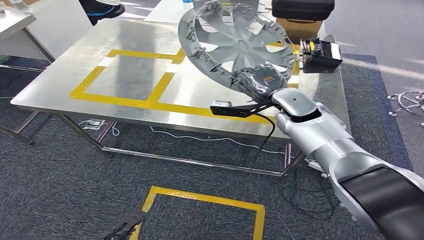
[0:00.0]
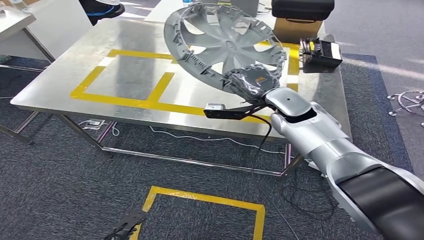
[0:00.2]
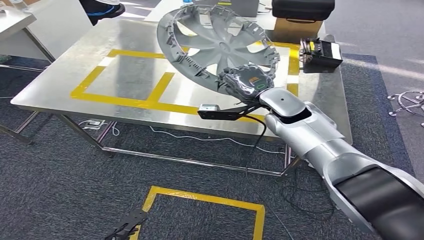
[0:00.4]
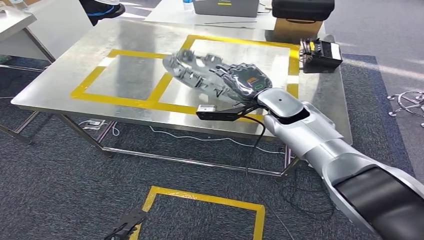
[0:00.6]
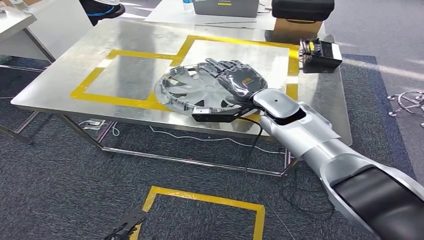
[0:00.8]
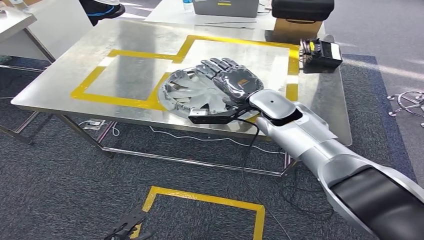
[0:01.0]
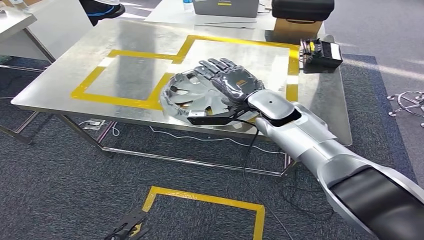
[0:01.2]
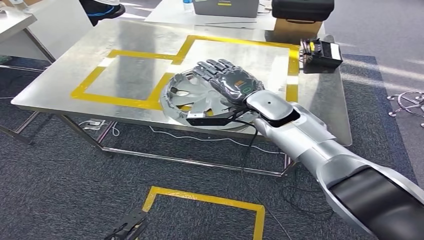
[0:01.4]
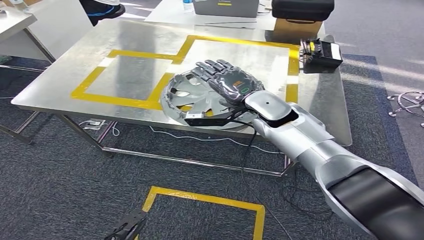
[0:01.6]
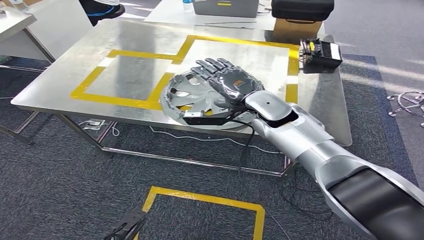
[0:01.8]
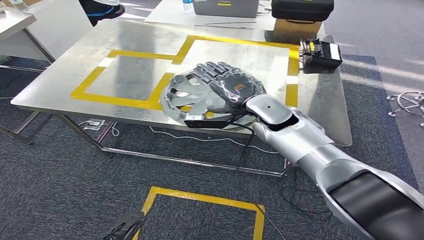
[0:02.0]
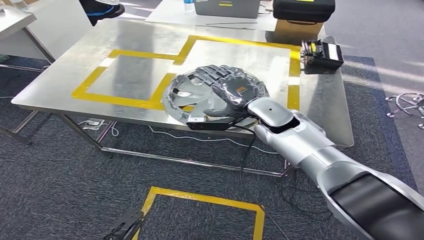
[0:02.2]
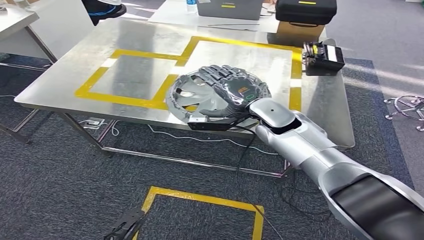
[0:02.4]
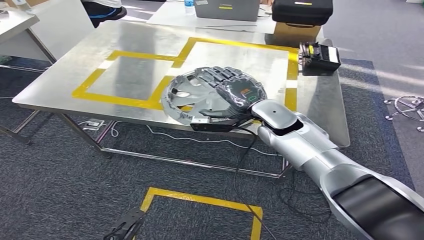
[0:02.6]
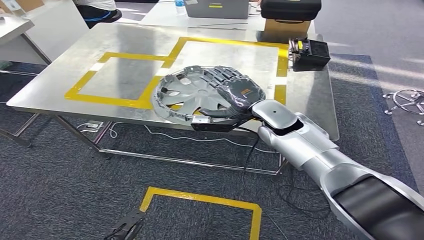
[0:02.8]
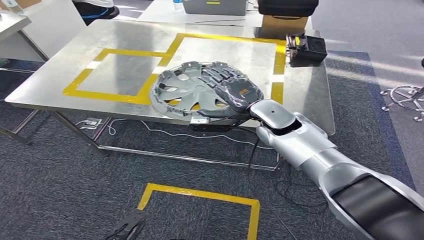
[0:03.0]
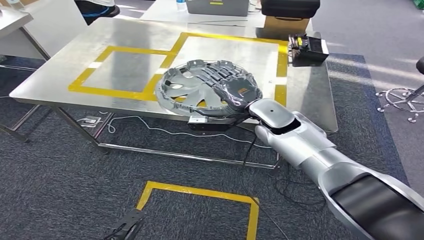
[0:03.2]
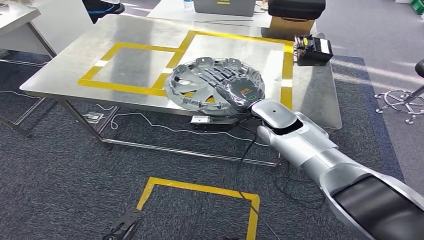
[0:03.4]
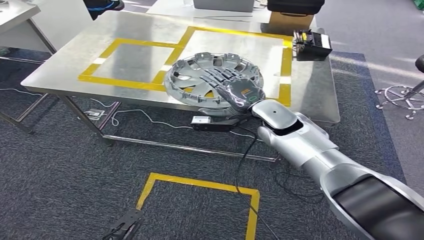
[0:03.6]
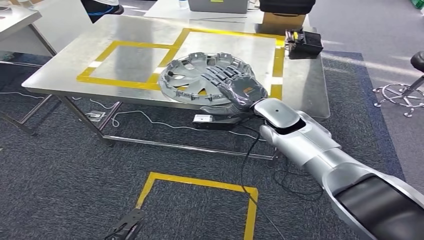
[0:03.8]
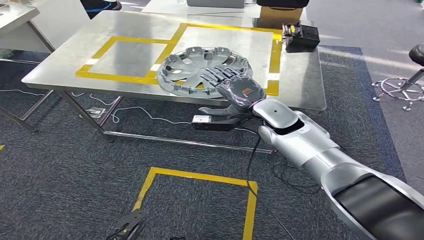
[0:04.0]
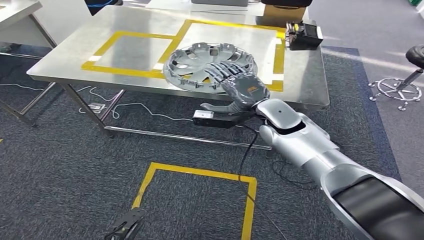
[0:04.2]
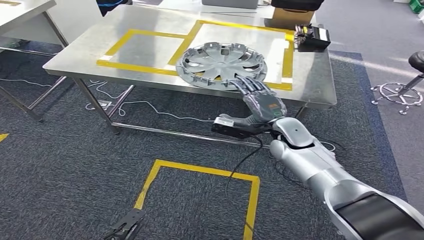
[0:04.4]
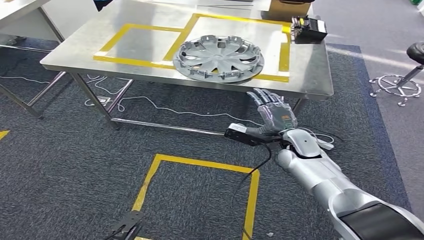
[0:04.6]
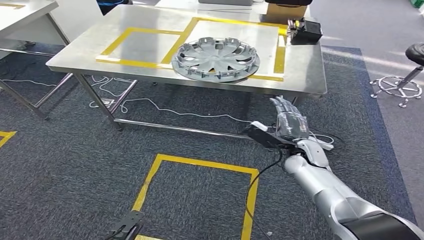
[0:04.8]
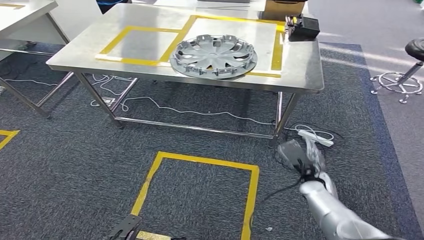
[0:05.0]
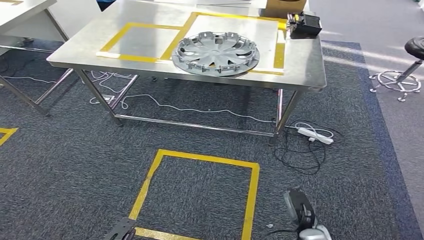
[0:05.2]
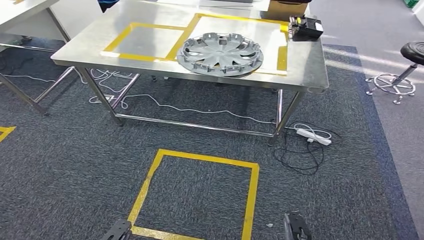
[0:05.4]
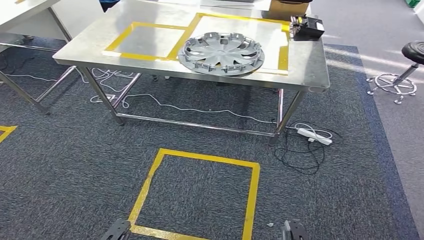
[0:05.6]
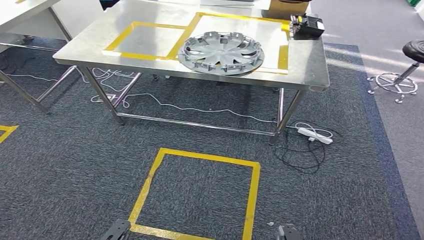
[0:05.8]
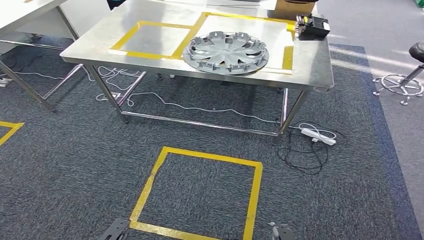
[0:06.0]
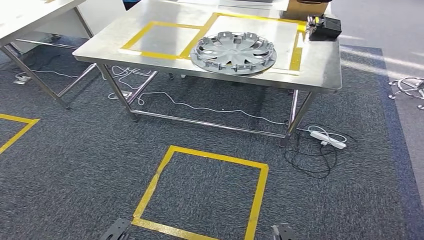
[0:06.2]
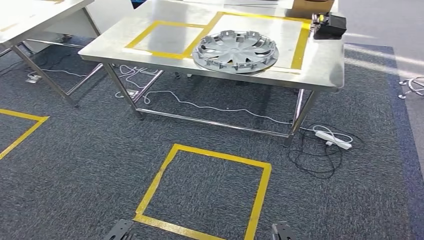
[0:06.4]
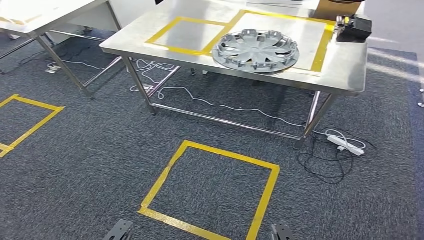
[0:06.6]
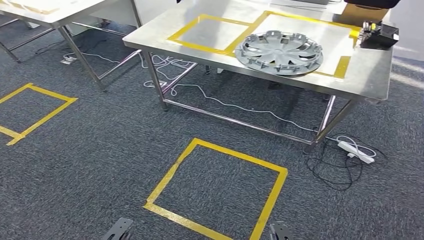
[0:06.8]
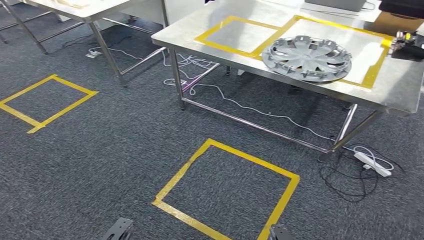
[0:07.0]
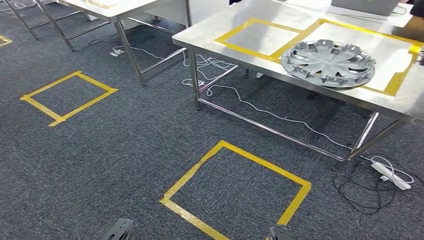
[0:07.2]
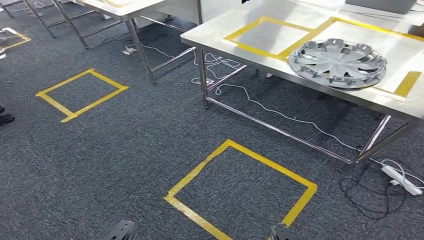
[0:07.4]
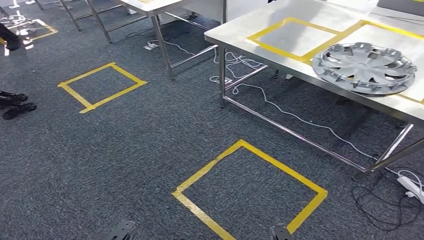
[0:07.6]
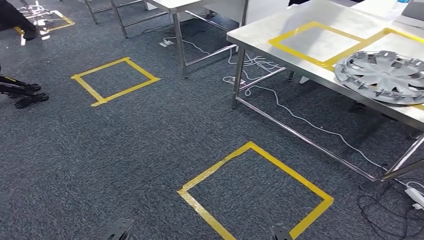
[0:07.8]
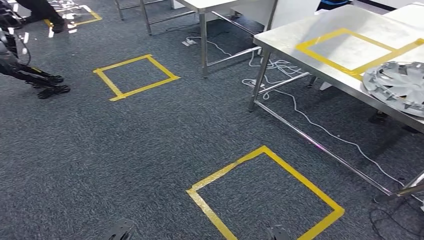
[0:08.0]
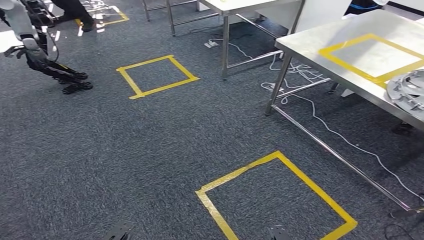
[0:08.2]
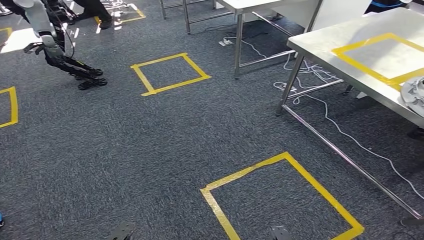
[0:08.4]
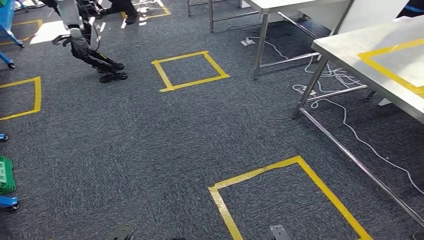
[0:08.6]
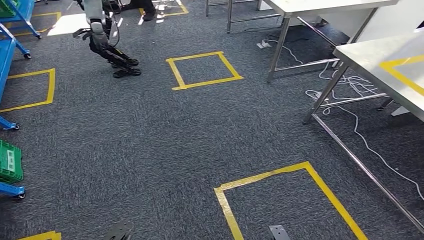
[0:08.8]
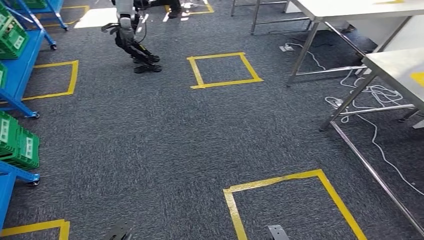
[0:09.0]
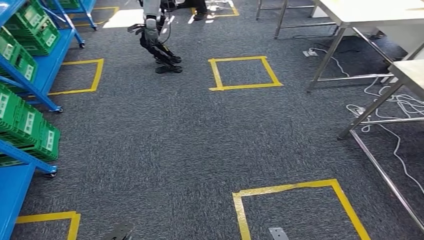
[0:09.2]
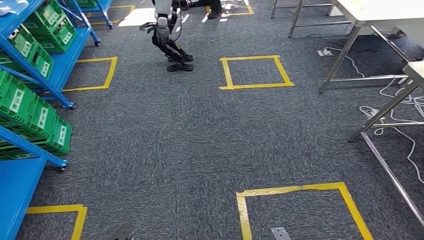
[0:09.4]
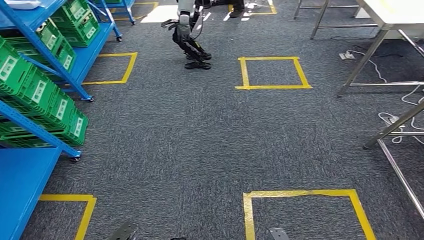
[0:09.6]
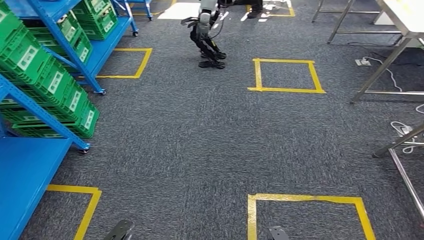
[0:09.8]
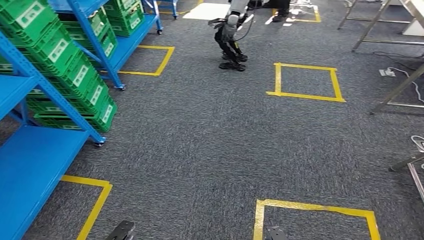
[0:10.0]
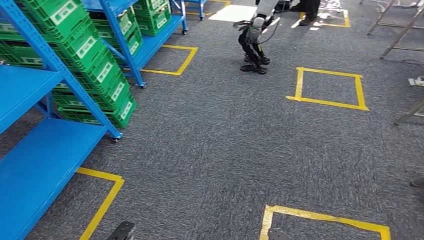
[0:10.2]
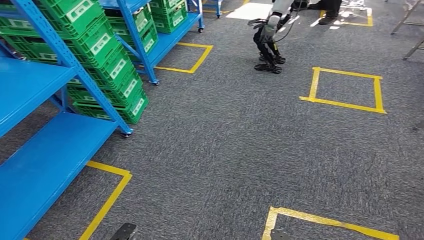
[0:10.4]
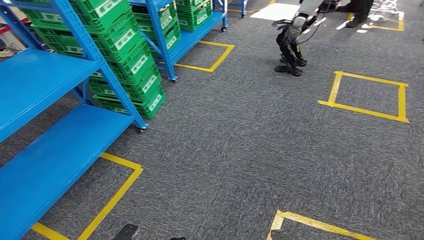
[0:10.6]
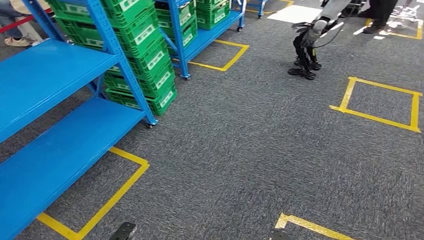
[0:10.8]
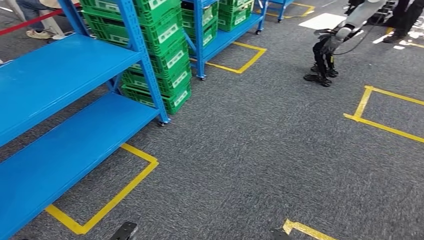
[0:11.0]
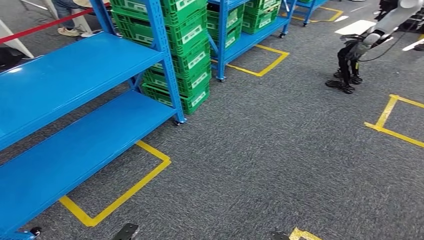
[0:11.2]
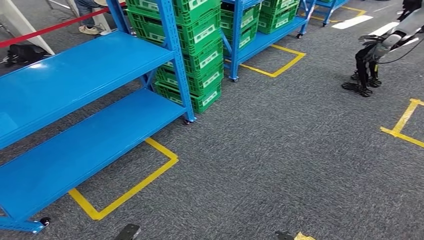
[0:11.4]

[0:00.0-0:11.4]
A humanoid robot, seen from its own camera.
Step, 0:00.6 to 0:03.0: Insert the small component into the corresponding slot on the workbench.
0:00.0 to 0:01.4: The right hand heads to the left, covering approximately 5 cm.

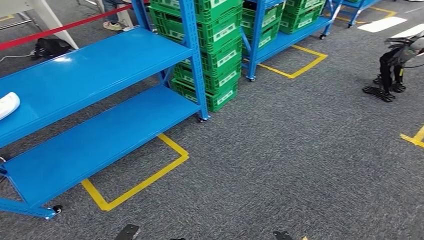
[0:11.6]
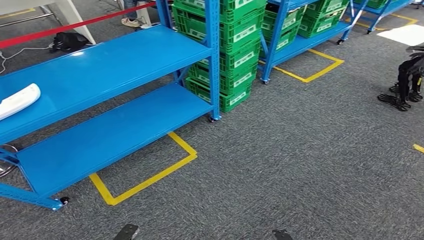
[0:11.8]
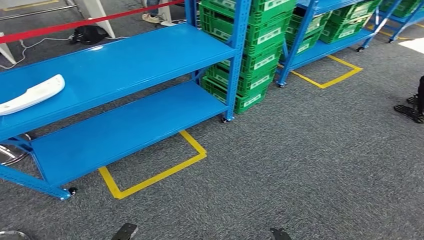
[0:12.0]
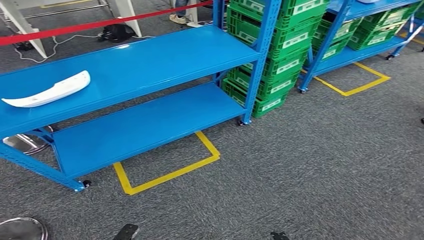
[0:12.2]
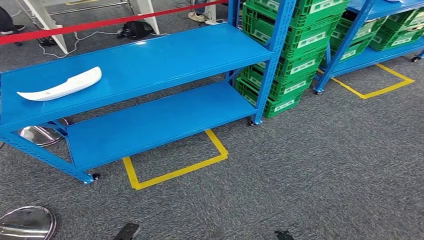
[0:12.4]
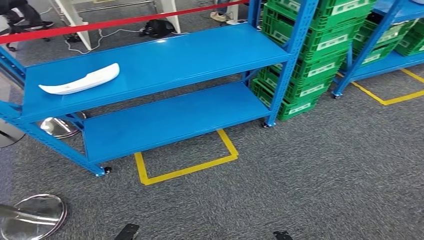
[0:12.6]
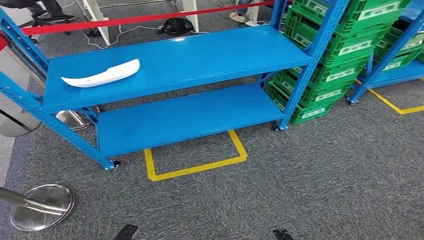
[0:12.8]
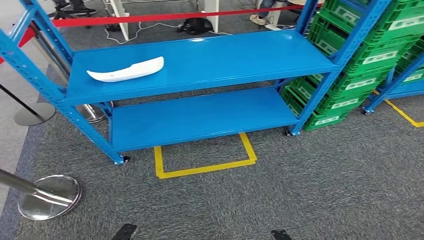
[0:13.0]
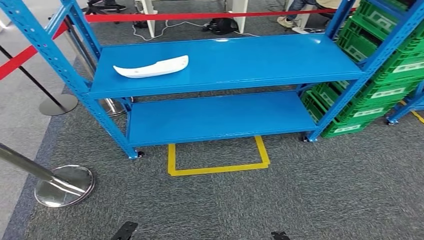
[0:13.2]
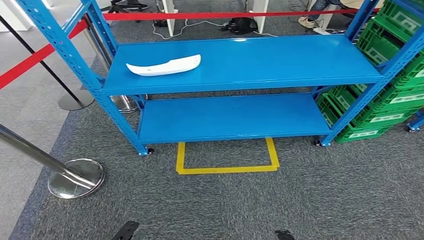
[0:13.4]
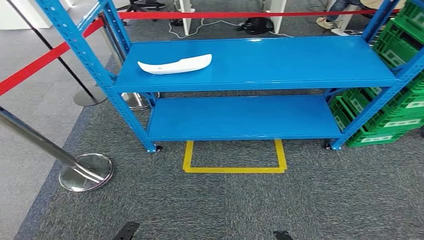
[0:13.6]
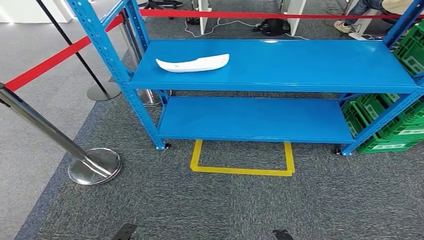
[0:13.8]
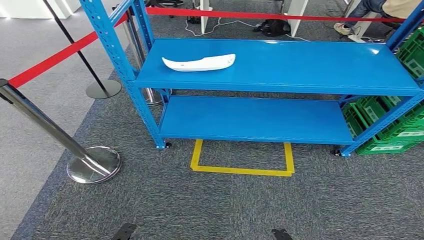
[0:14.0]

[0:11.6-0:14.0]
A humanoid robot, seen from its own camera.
Step, 0:11.6 to 0:14.0: Return to the initial position at the workbench.
